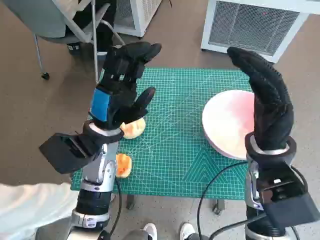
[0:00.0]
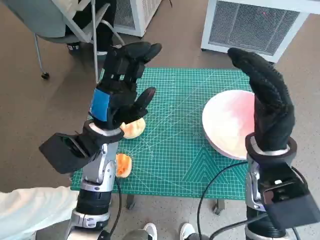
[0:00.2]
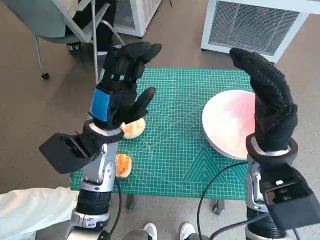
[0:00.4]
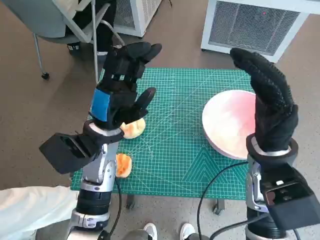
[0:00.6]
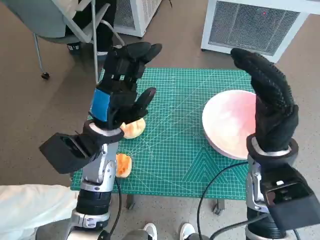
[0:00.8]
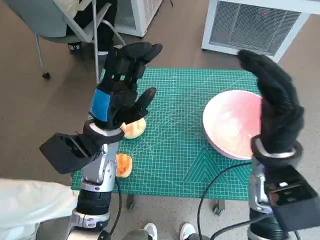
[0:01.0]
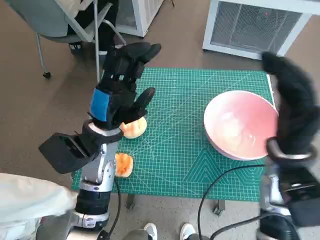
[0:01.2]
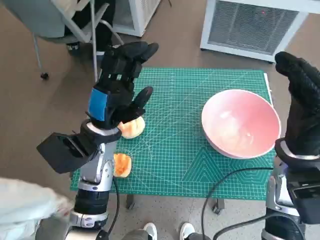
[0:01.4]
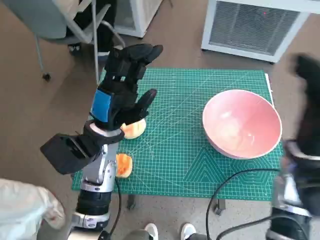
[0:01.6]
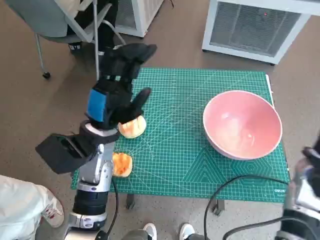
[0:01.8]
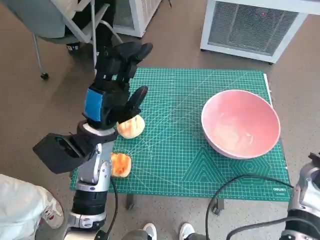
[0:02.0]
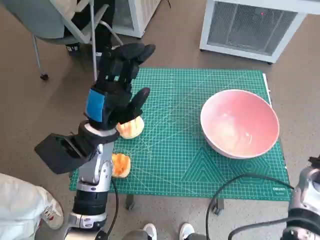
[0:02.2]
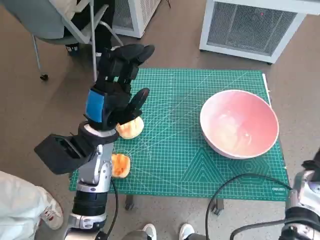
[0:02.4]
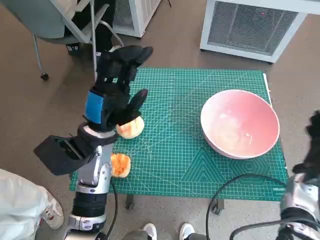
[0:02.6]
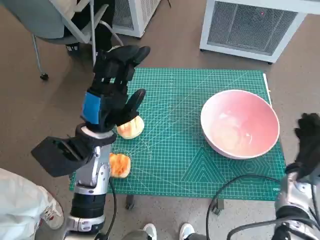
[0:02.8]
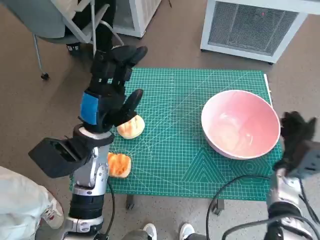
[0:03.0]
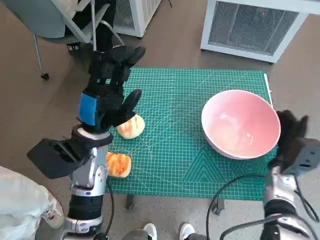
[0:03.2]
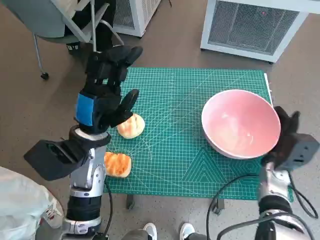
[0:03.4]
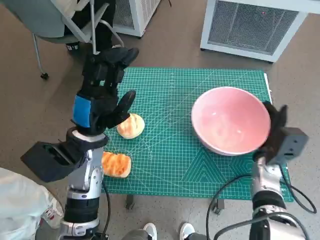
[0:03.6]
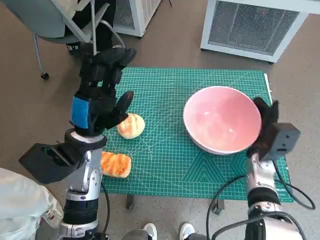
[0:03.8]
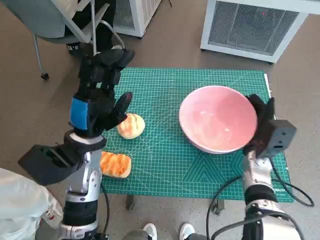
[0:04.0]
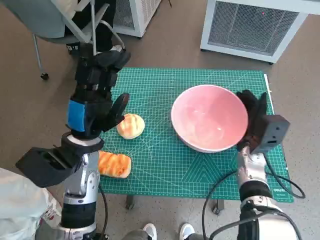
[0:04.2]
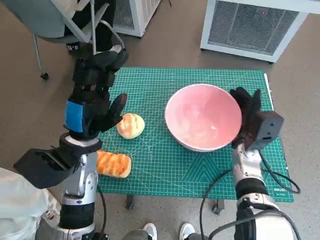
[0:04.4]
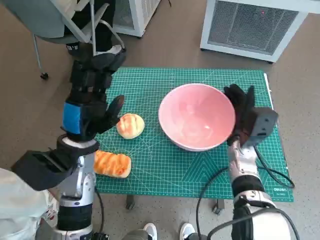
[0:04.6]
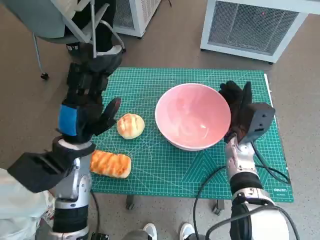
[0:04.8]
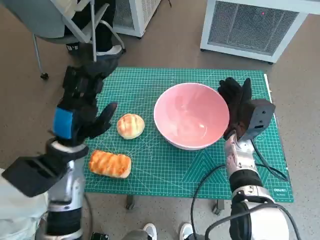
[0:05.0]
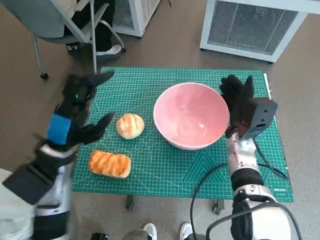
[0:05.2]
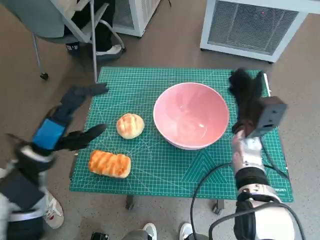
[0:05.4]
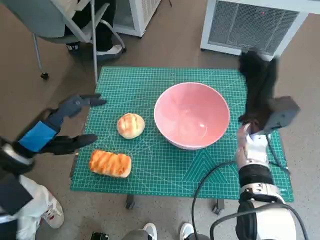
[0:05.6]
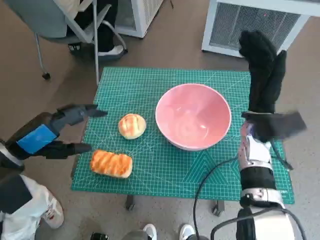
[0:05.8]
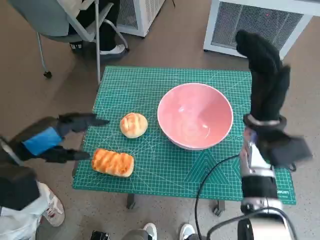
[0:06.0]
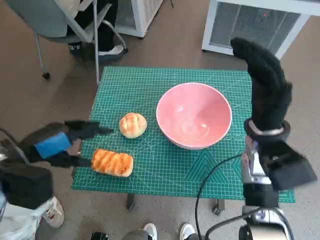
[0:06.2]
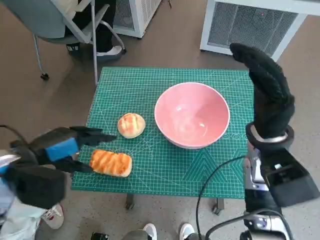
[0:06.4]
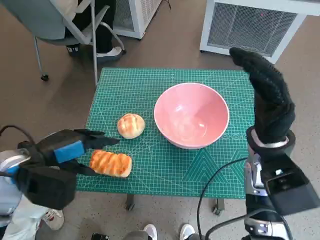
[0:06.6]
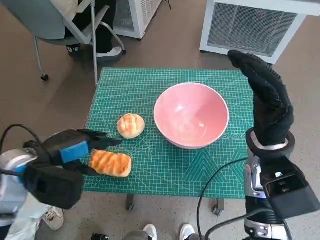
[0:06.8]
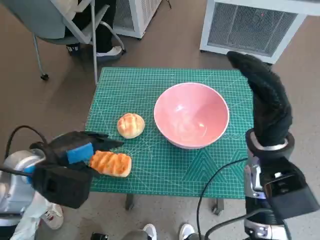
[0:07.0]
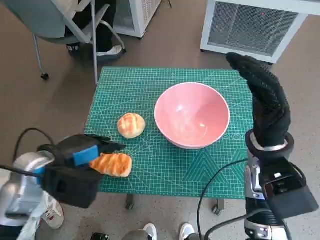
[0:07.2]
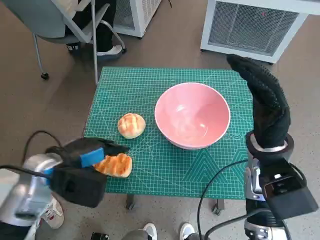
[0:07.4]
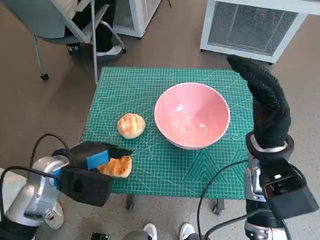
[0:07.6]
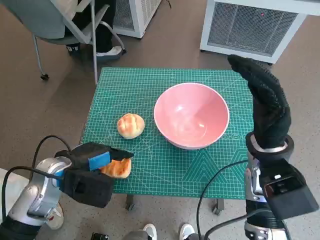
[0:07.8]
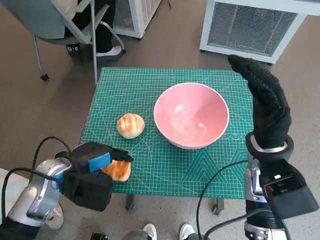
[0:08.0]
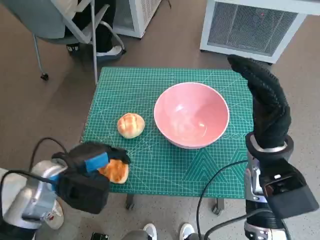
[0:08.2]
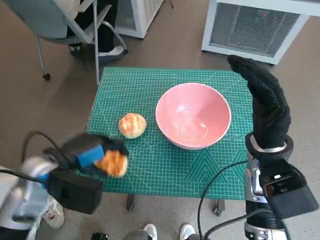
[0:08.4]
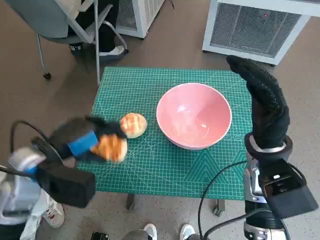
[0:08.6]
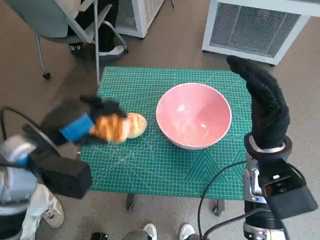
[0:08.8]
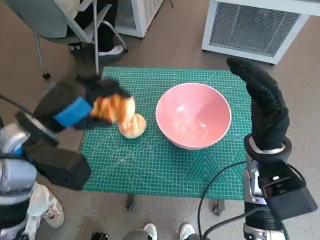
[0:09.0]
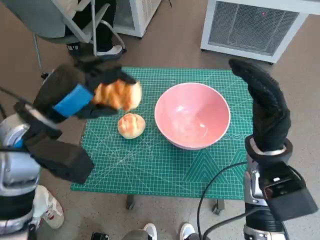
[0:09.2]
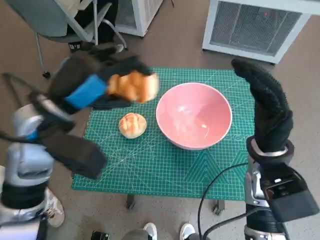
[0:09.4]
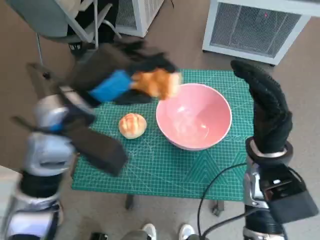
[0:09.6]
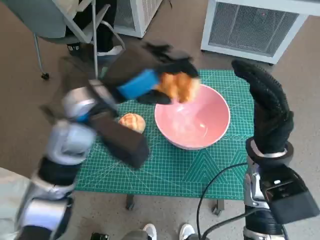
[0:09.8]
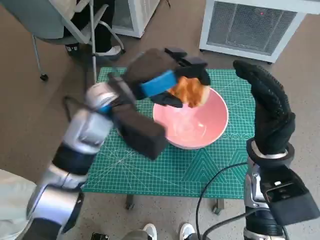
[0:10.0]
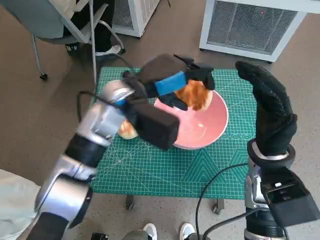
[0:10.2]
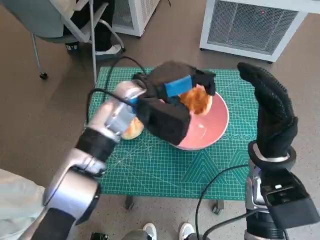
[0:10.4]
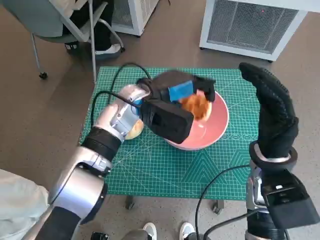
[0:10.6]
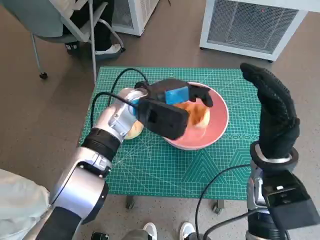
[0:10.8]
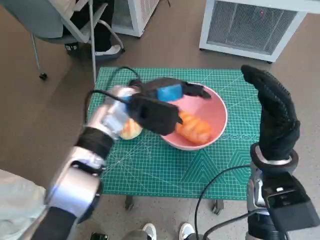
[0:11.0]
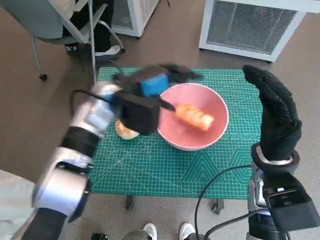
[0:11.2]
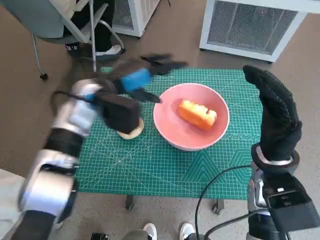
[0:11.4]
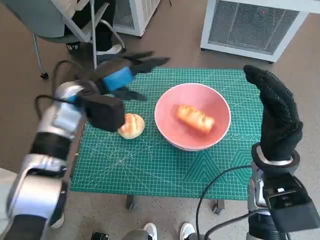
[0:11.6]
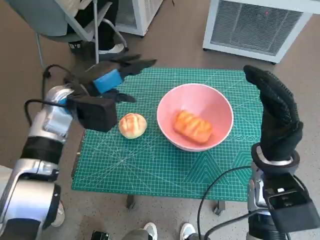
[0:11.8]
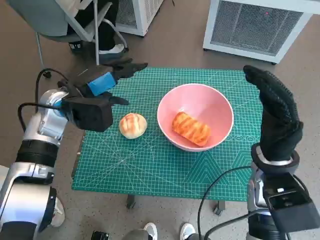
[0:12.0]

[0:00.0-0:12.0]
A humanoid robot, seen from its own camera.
Task of the whole recording: Push the bowl to the center of the table and put the bread into the bowl.
Step, 0:00.0 to 0:05.6: Move the pink bowl to the center of table with right hand.
Step, 0:05.8 to 0:07.8: Grasp the long bread with left hand.
Step, 0:08.0 to 0:11.0: Place the long bread in pink bowl with left hand.
0:01.6 to 0:03.0: The right hand heads downward and to the right, covering roughly 15 cm.
0:03.0 to 0:04.4: The right hand heads to the left, covering approximately 10 cm.
0:04.4 to 0:06.0: The right hand travels upward by roughly 10 cm; the left hand is displaced to the left by roughly 10 cm.
0:06.0 to 0:07.6: The left hand goes roughly 10 cm to the right and downward.
0:07.6 to 0:09.0: The left hand shifts about 10 cm upward.
0:09.0 to 0:10.4: The left hand goes about 20 cm to the right and forward.
0:10.4 to 0:12.0: The left hand heads to the left, covering approximately 15 cm.

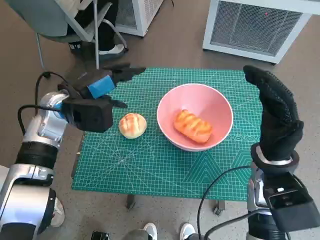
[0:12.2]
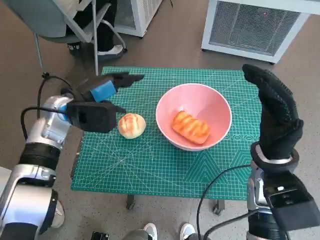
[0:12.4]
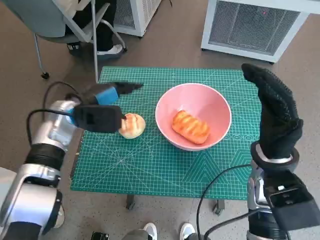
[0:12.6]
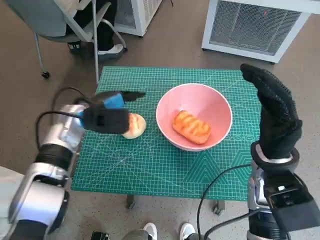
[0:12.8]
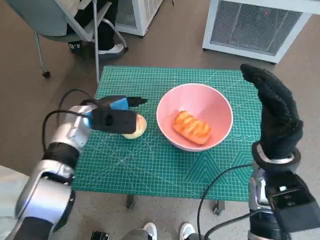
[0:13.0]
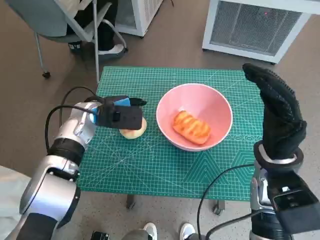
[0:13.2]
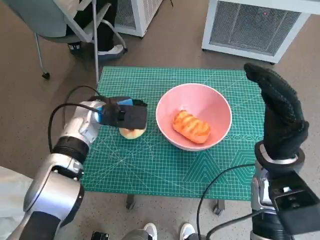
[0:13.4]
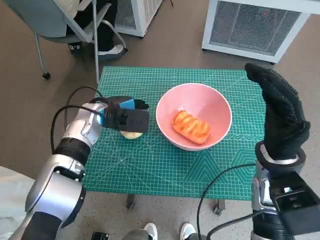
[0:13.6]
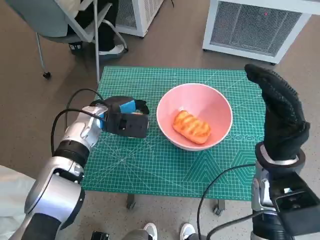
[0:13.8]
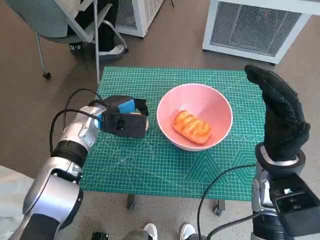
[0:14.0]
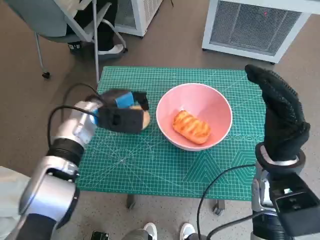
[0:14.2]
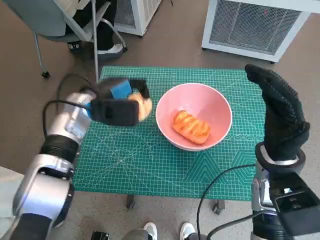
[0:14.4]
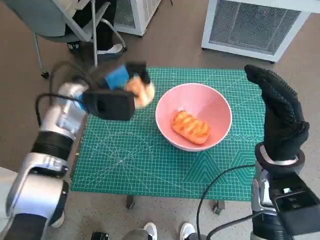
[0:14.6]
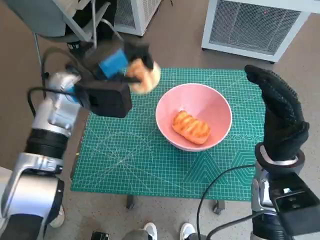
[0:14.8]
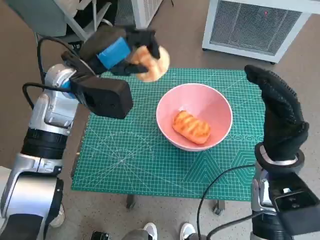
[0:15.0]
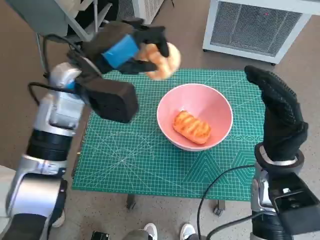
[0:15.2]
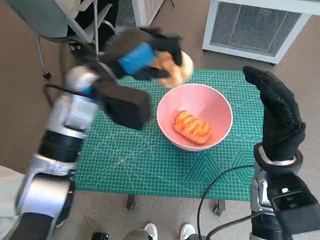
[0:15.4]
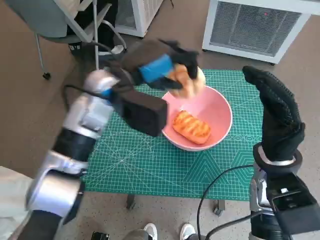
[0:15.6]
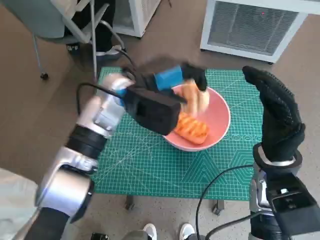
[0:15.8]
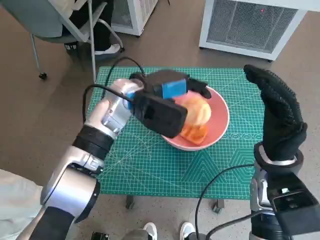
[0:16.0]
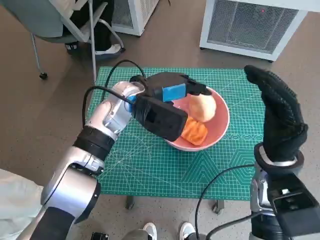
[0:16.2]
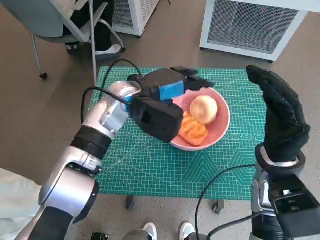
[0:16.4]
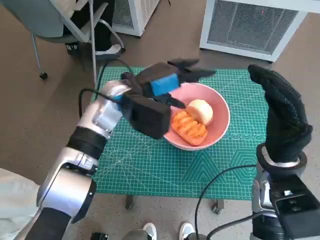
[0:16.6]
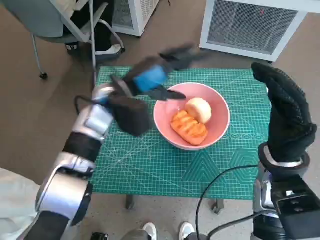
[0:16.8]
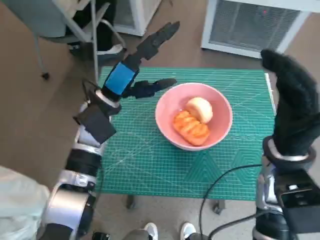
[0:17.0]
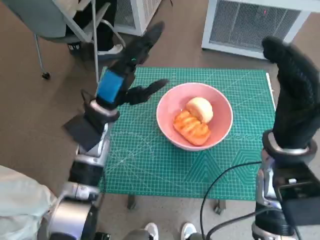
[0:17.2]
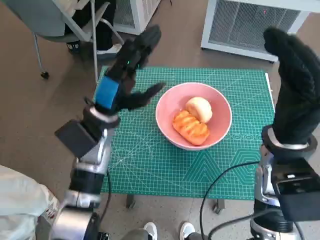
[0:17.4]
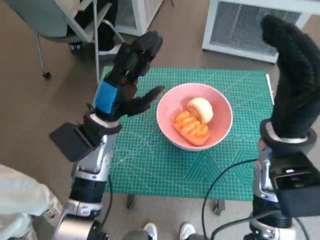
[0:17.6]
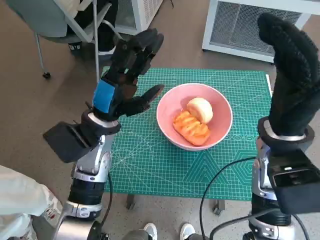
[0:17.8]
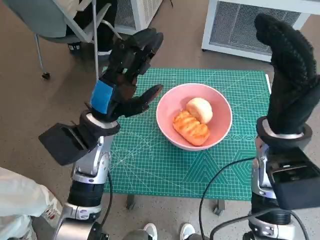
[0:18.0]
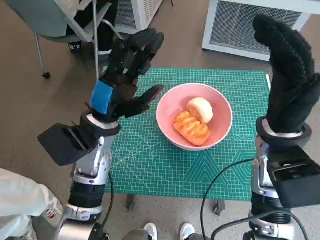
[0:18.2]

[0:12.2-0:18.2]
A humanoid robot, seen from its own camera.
Task of the whole recording: Push the bowl to the center of the table and put the bread into the bowl.
Step, 0:12.2 to 0:13.8: Grasp the round bread with left hand.
Step, 0:14.0 to 0:16.8: Place the round bread in pink bowl with left hand.
0:12.2 to 0:13.8: The left hand shifts approximately 5 cm downward.
0:13.8 to 0:15.2: The left hand travels upward by roughly 15 cm.
0:15.2 to 0:16.6: The left hand moves downward and to the right, about 10 cm.
0:16.6 to 0:18.2: The right hand changes place by approximately 5 cm; the left hand goes about 5 cm backward.

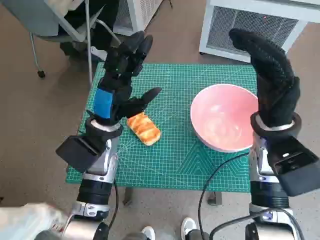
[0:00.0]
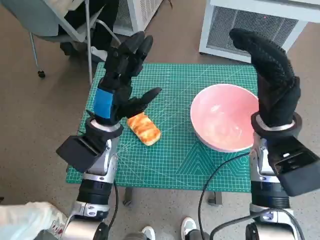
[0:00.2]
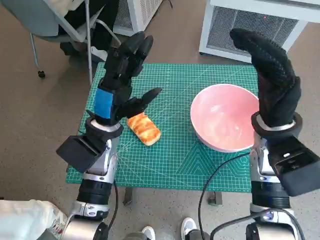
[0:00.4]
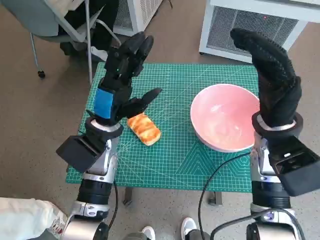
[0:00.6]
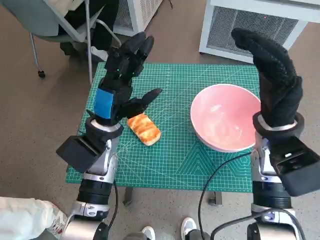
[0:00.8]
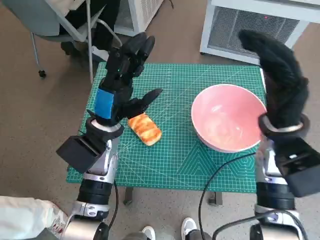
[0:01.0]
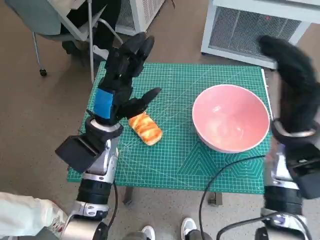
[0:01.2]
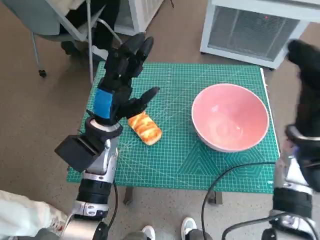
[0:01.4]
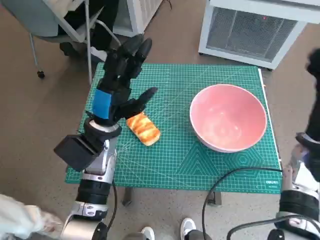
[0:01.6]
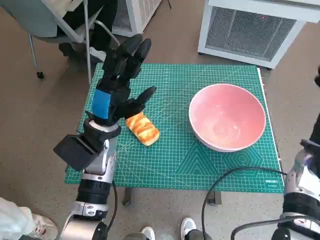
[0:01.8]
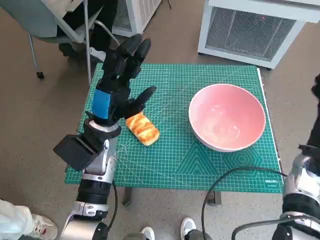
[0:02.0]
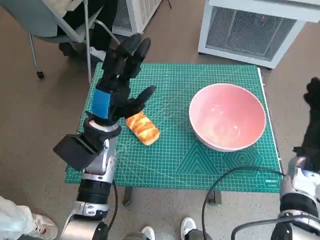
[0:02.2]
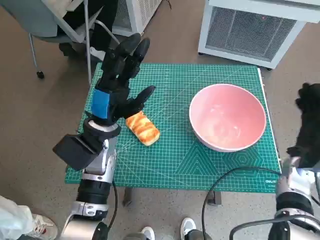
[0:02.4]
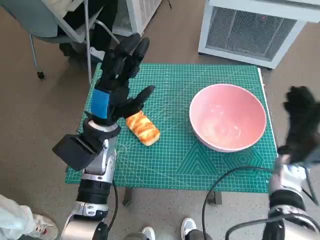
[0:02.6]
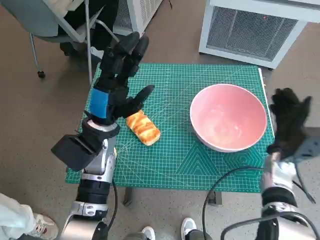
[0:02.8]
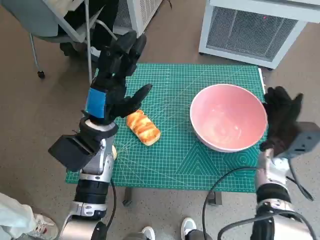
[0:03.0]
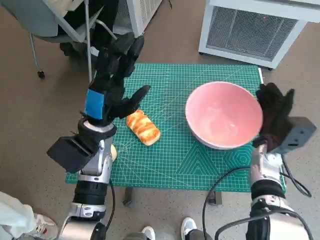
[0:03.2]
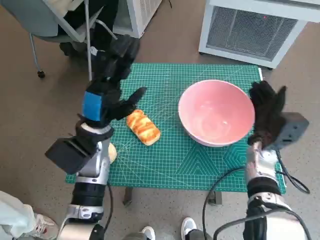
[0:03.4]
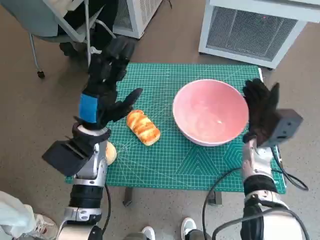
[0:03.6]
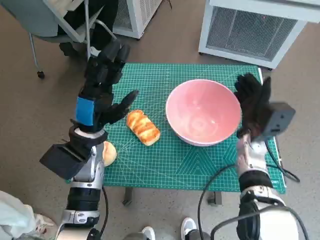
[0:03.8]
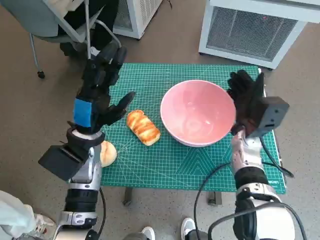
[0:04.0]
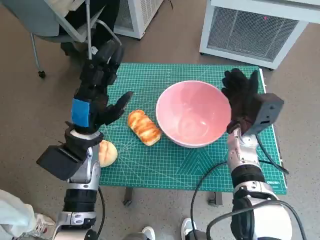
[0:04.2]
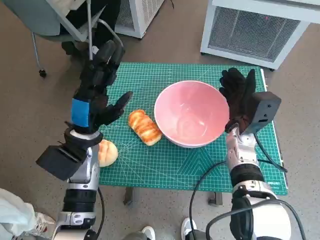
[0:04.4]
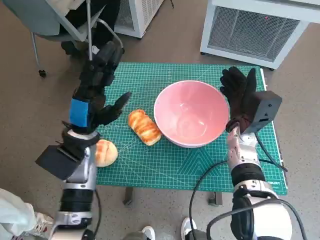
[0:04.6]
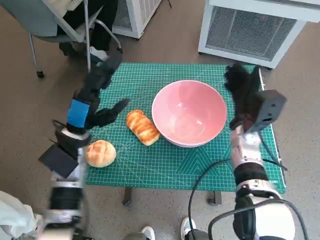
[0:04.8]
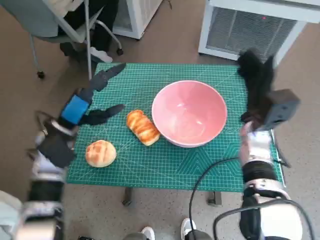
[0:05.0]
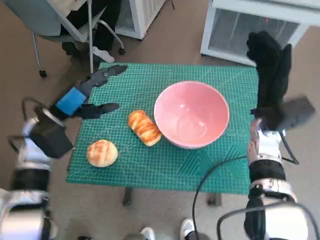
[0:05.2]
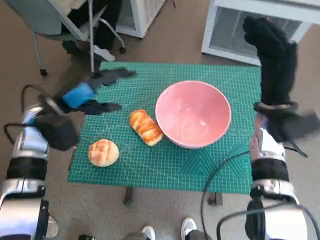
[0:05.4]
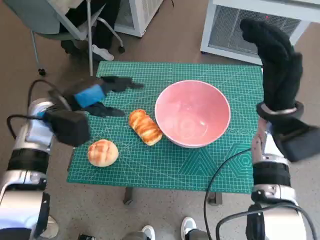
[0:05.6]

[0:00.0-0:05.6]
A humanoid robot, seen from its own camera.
Task of the whole recording: Push the bowl to the center of the table and put the bread into the bowl.
Step, 0:00.0 to 0:04.8: Move the pink bowl to the center of table with right hand.
0:01.4 to 0:02.8: The right hand goes roughly 10 cm downward.
0:02.8 to 0:04.2: The right hand heads to the left, covering roughly 10 cm.
0:04.2 to 0:05.6: The right hand is displaced upward by some 10 cm; the left hand travels to the left by some 5 cm.
